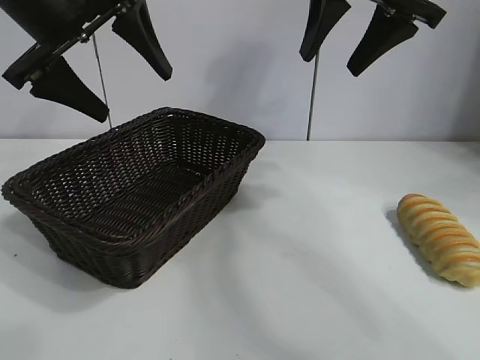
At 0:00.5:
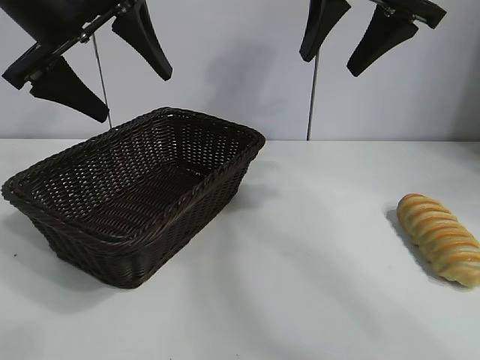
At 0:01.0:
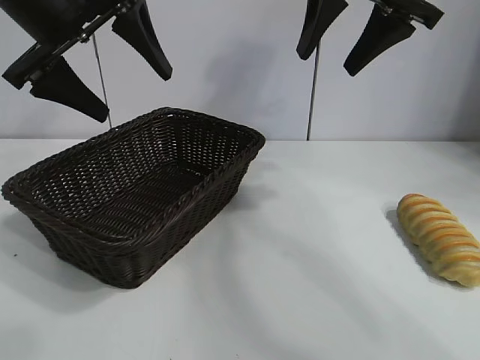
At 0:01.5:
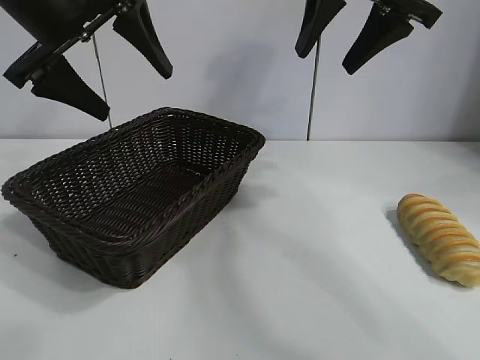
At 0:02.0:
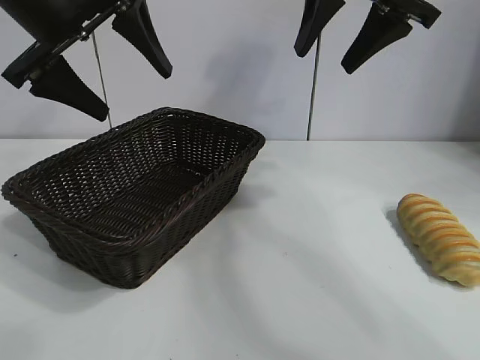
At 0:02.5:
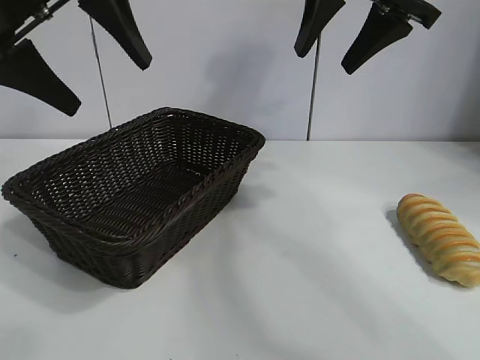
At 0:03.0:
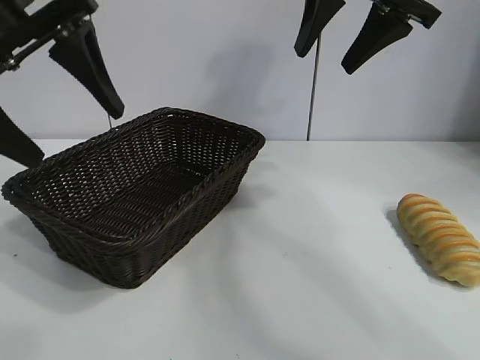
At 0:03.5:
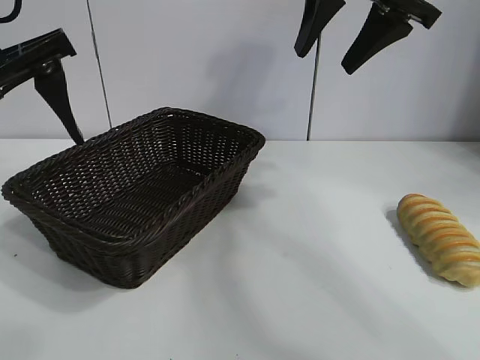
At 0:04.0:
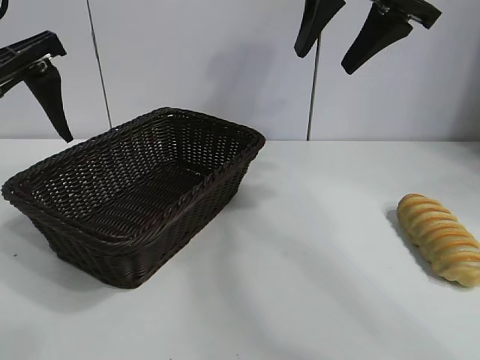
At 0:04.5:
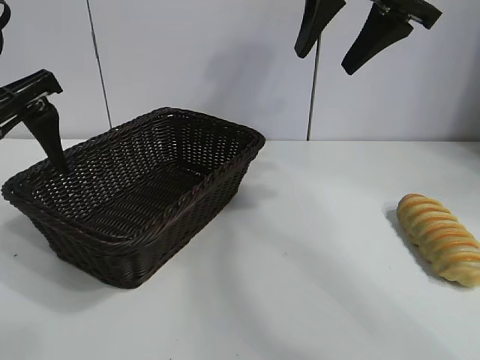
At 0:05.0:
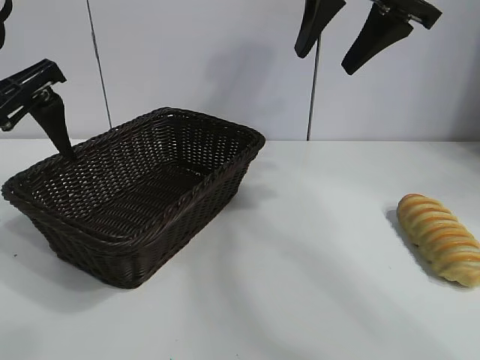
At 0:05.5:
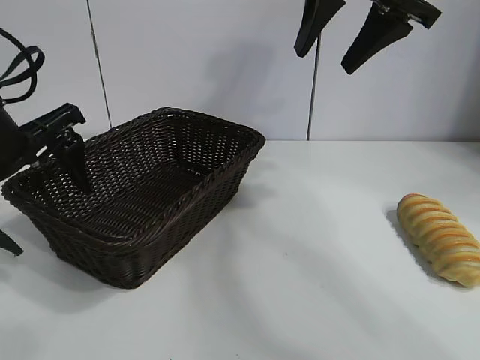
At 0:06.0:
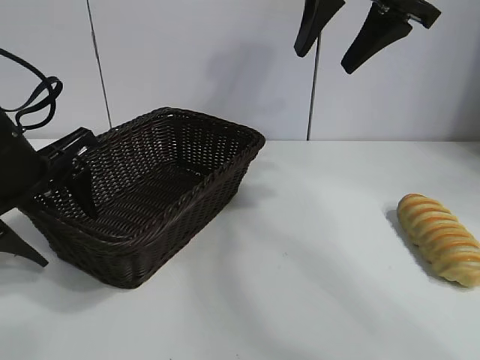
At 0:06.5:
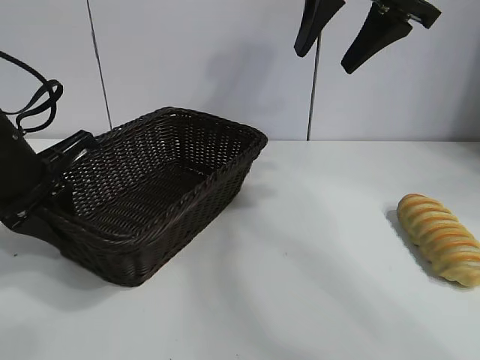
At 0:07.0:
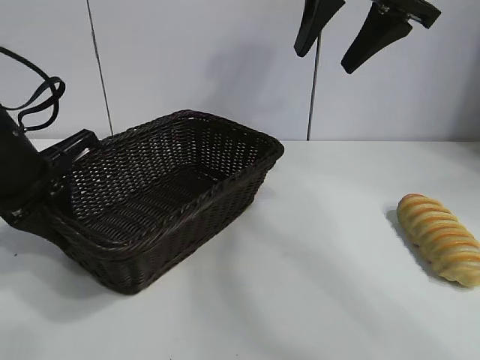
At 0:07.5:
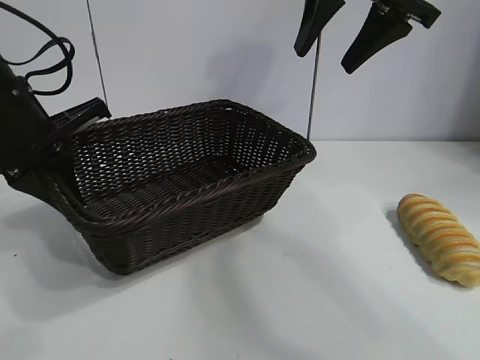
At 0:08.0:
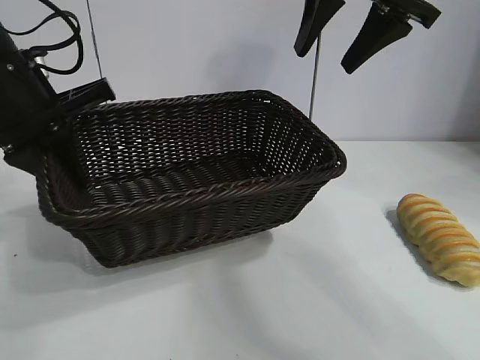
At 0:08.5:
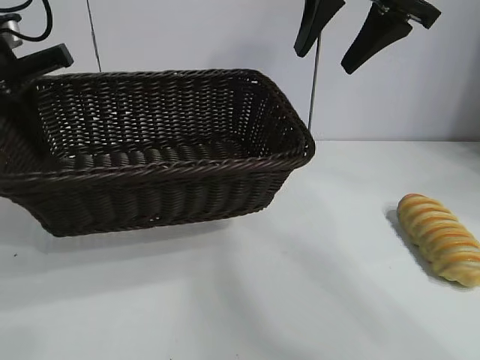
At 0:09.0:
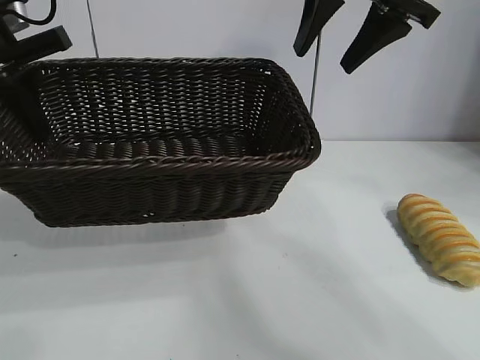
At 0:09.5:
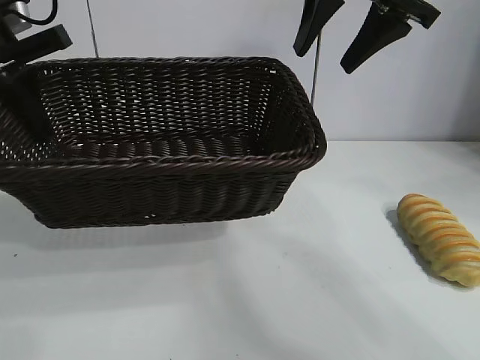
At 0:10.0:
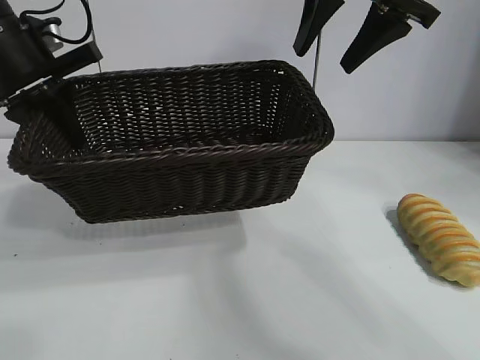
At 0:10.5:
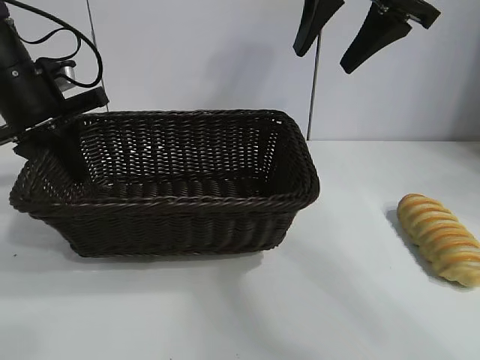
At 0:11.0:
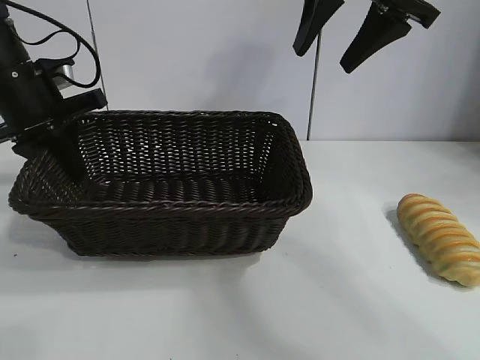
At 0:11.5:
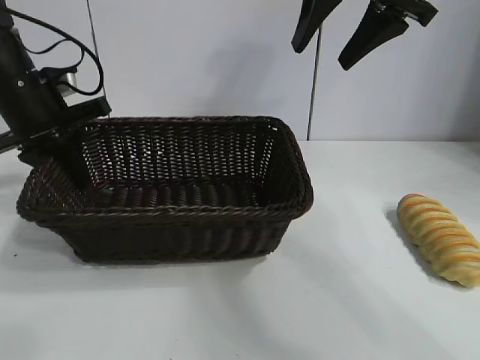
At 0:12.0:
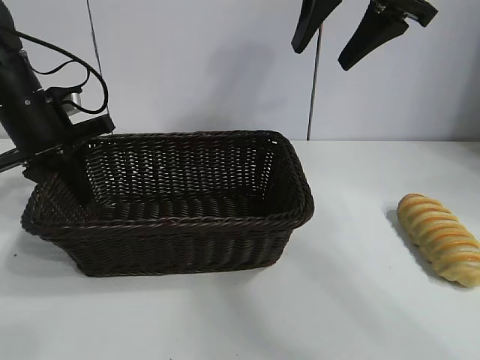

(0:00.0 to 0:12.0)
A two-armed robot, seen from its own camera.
Task of the whole recording: pick up the long bread and put it into the basket.
Step, 0:02.0 - 0:06.5: Grasp the basket with the left gripper.

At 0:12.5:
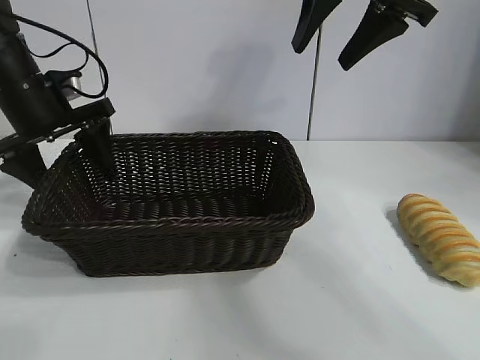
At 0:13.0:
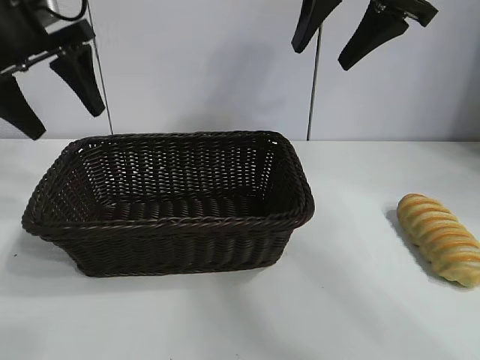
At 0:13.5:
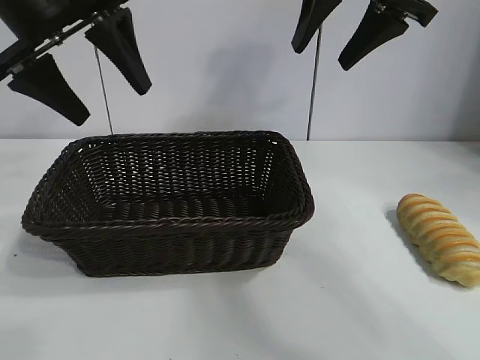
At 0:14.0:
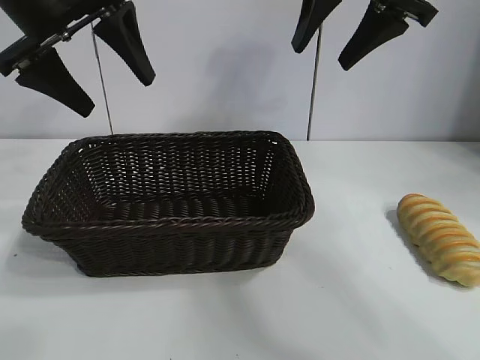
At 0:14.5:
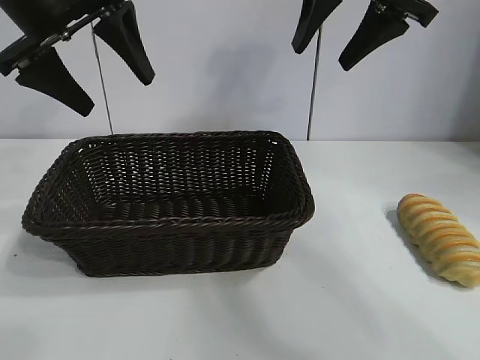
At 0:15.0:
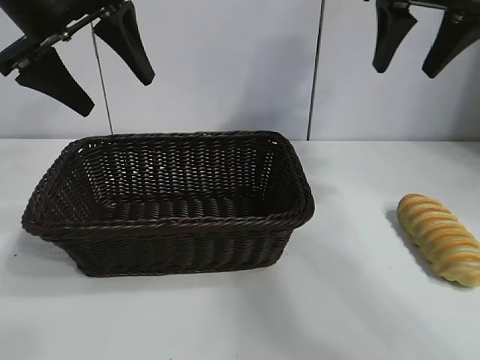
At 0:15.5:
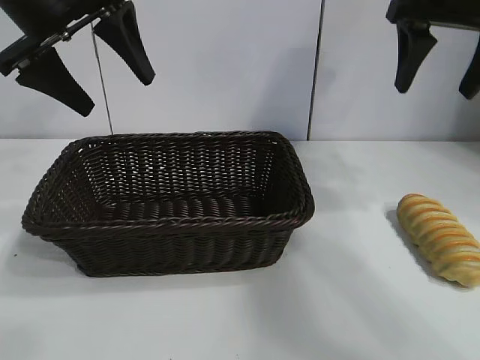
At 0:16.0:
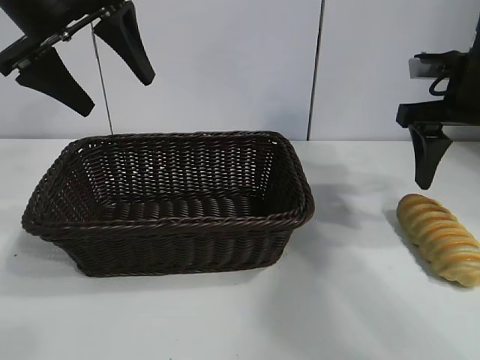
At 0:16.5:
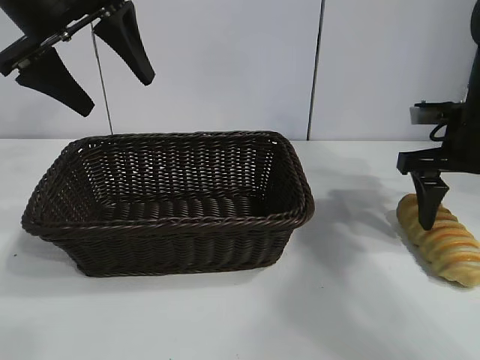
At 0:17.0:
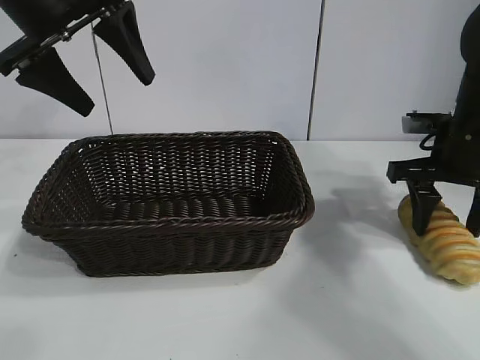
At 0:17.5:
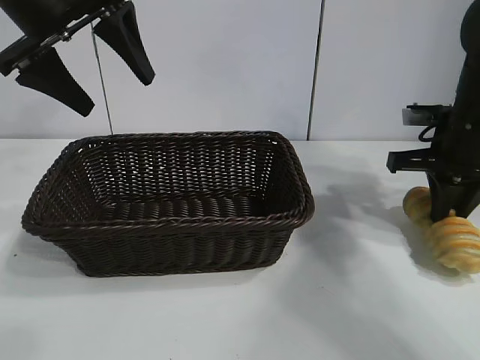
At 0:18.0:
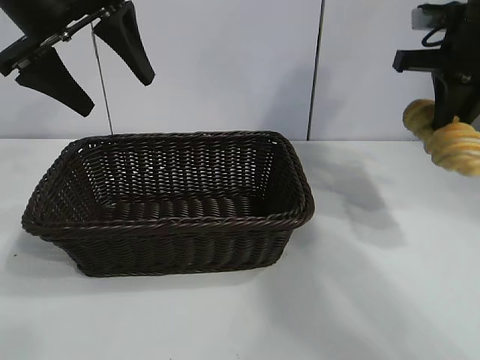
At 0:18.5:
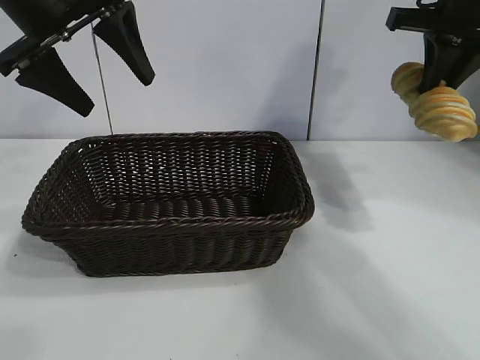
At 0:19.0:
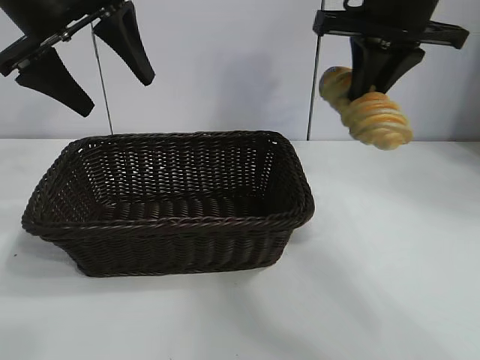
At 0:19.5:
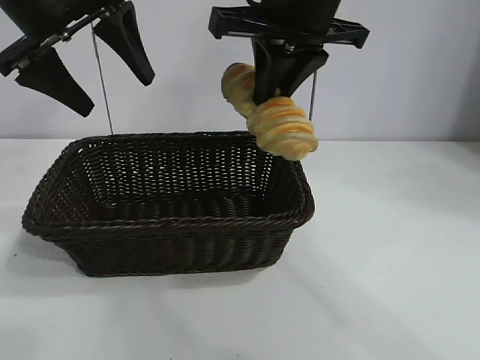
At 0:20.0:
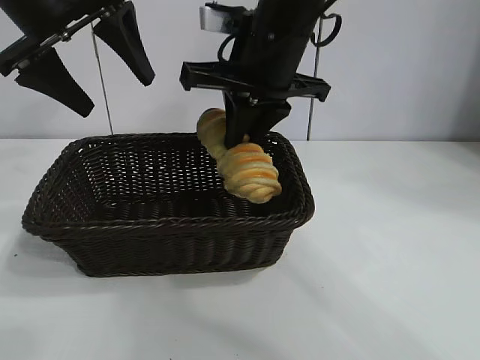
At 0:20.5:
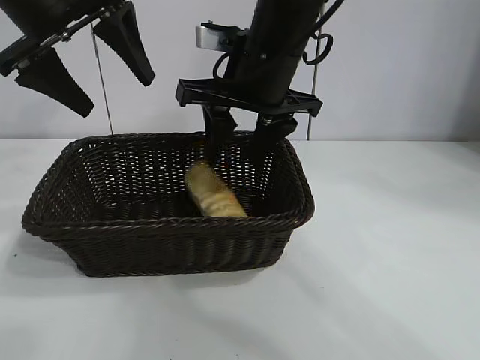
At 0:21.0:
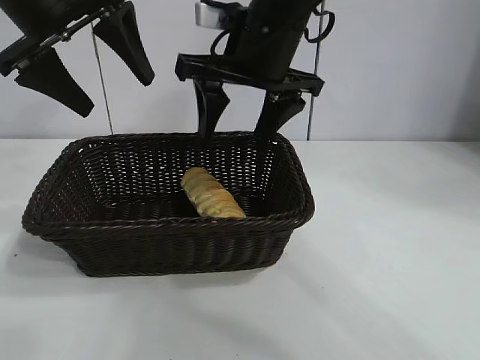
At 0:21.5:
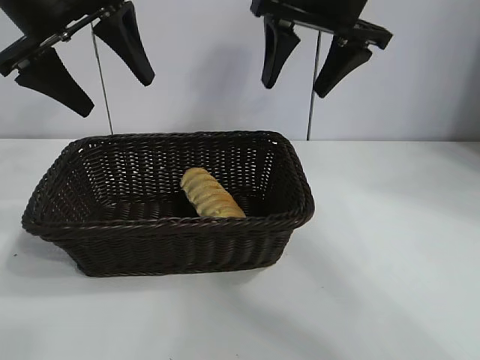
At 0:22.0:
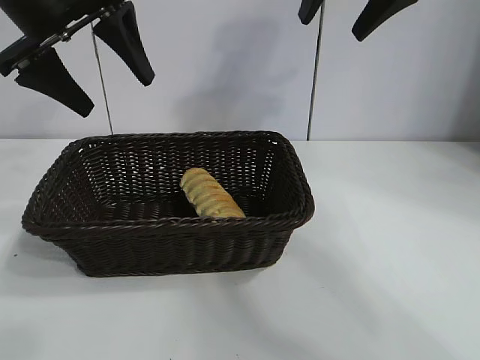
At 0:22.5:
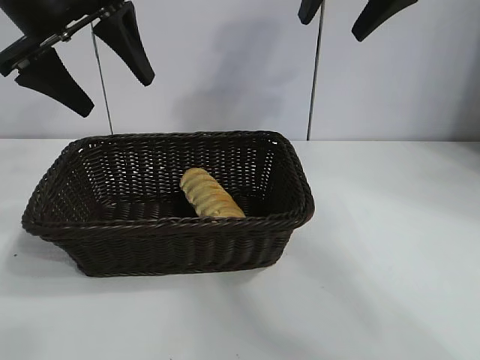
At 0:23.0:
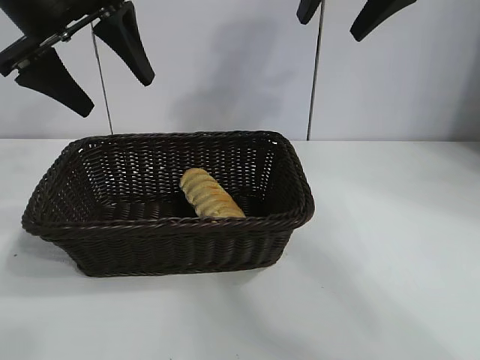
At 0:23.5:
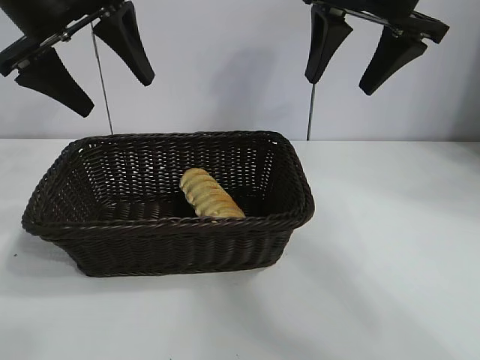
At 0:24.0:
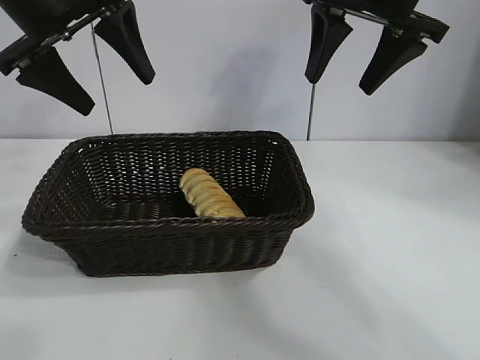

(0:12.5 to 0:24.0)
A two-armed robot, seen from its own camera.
Task of the whole recording: pick up the long bread and put it into the basket.
Step, 0:12.5 - 0:17.0: Grasp the long bread with right gripper.
Step, 0:17.5 - 0:20.5: Place the long bread in the basket with right gripper.

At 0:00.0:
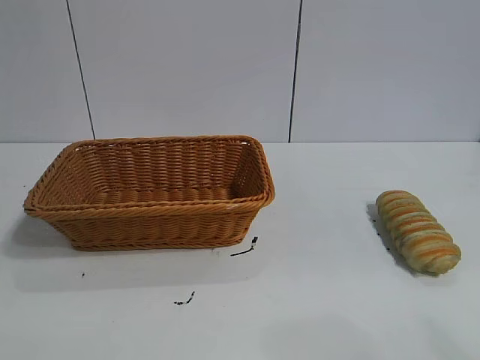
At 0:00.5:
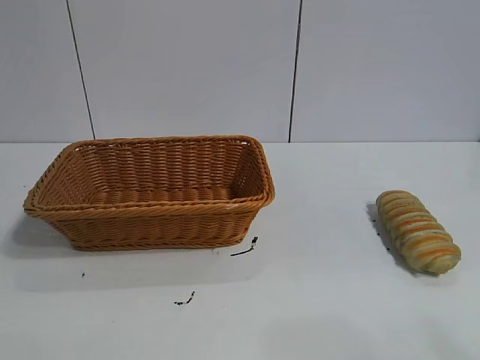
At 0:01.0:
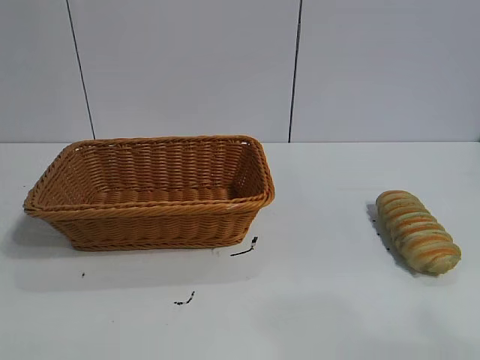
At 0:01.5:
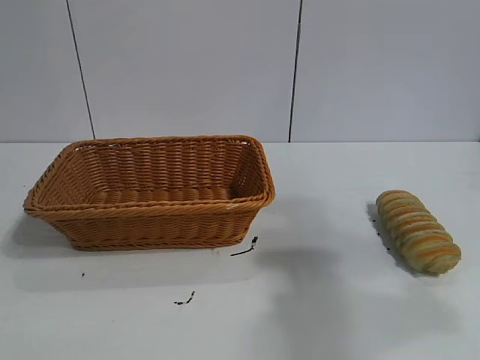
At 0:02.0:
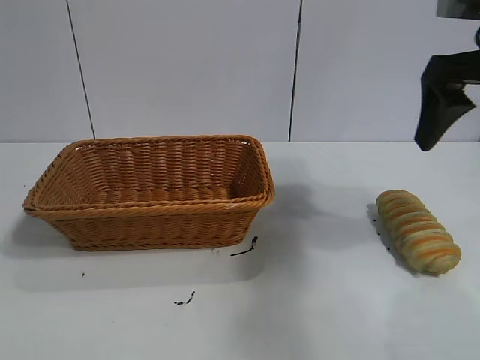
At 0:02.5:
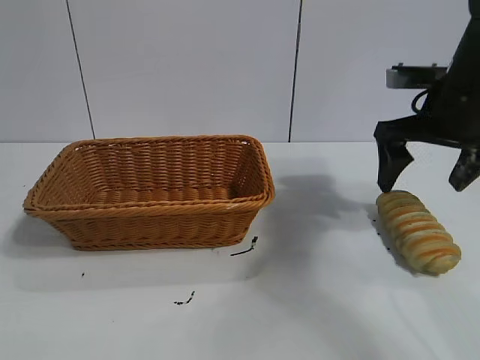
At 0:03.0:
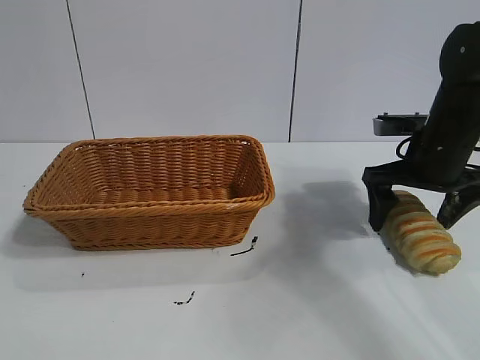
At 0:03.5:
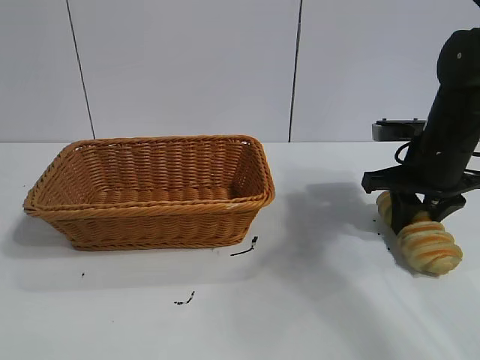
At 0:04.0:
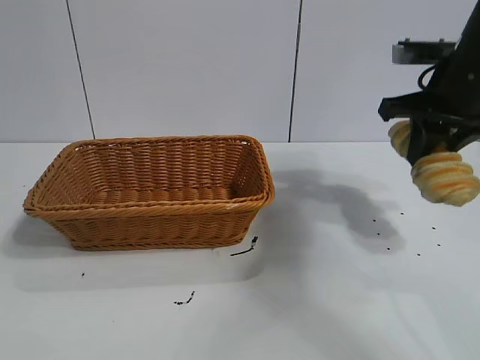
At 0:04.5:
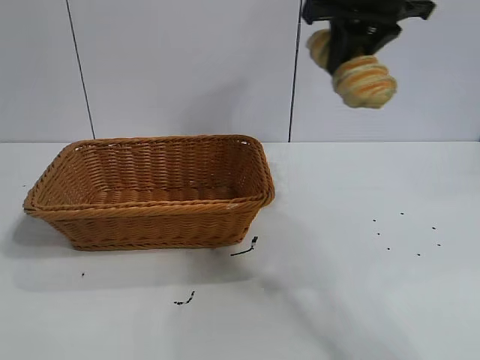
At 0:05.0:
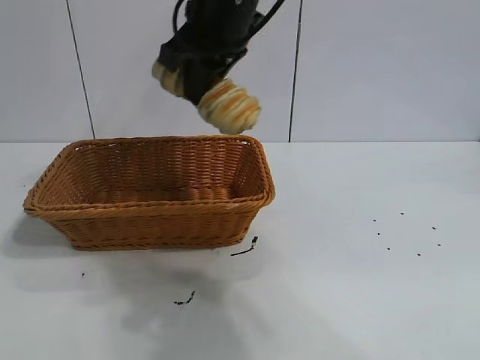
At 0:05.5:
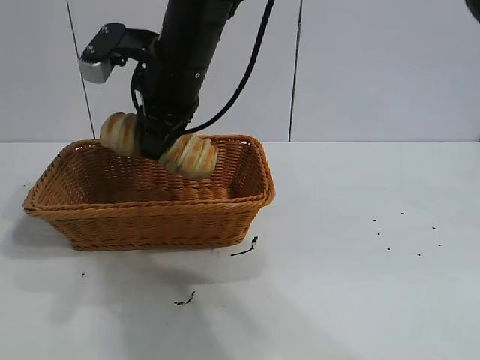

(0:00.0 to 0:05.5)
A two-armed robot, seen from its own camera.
Task of the whole recording: pick up the long bread and put it into the basket.
Step, 0:02.0 - 0:03.5: Grasp the long bread with right gripper.
